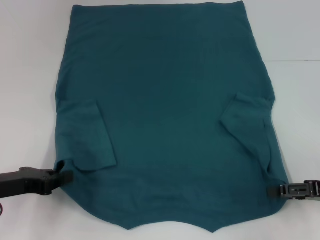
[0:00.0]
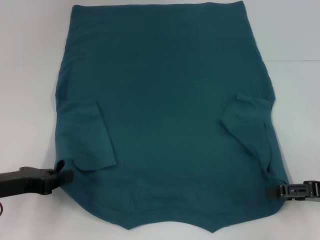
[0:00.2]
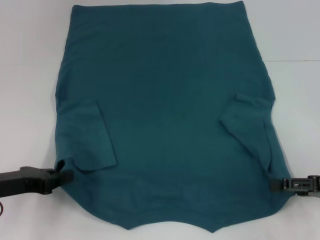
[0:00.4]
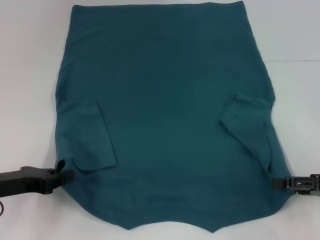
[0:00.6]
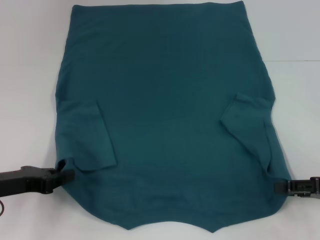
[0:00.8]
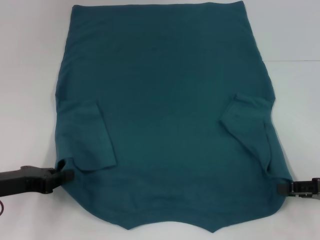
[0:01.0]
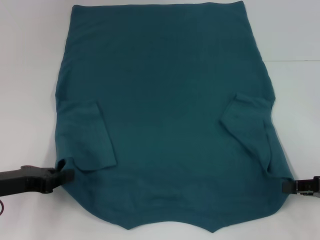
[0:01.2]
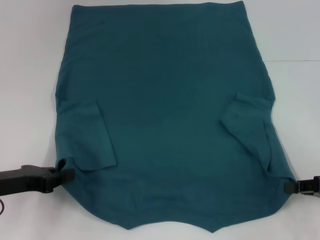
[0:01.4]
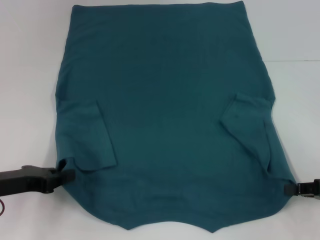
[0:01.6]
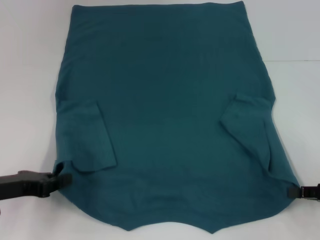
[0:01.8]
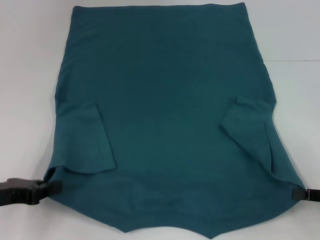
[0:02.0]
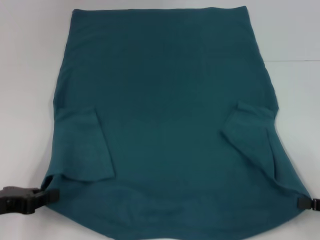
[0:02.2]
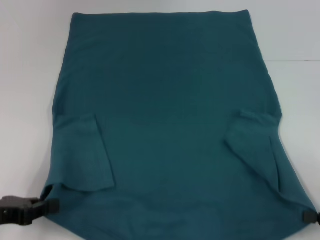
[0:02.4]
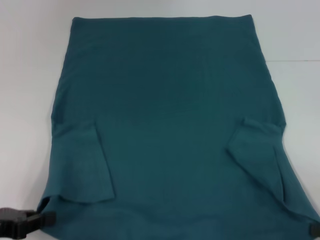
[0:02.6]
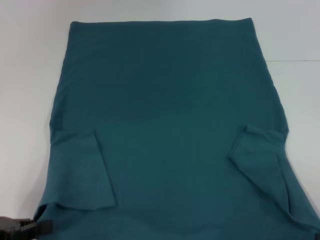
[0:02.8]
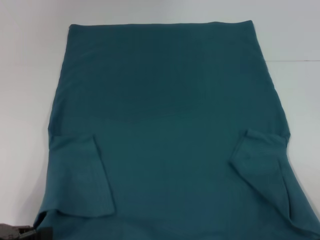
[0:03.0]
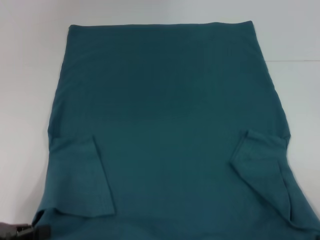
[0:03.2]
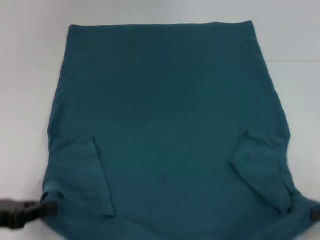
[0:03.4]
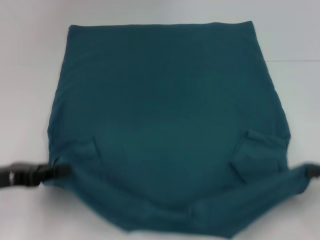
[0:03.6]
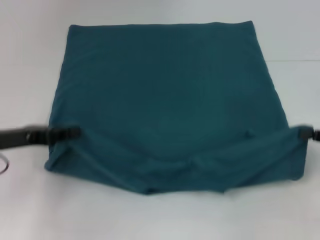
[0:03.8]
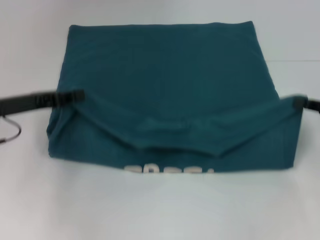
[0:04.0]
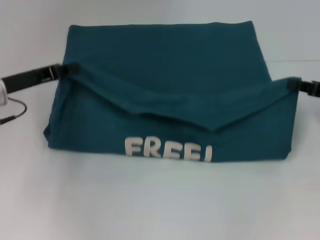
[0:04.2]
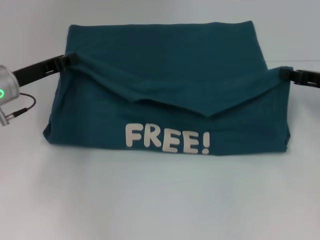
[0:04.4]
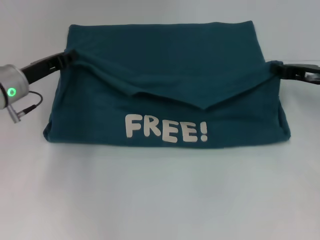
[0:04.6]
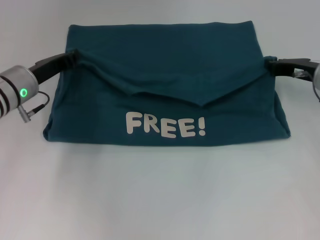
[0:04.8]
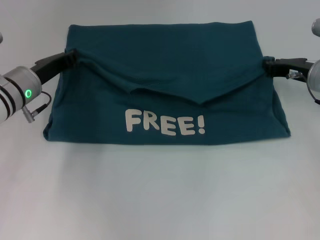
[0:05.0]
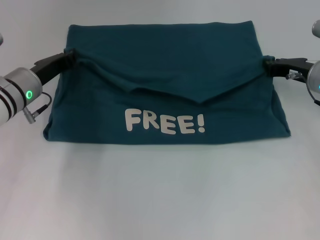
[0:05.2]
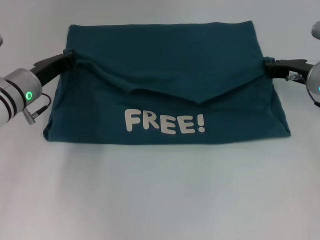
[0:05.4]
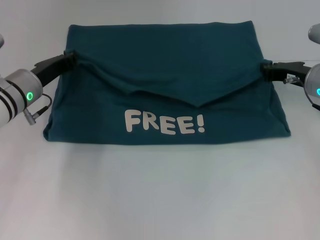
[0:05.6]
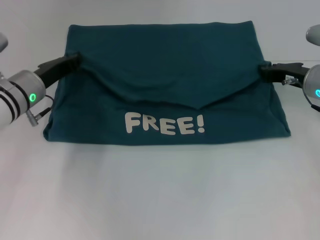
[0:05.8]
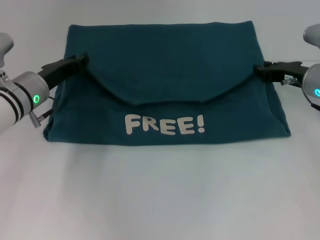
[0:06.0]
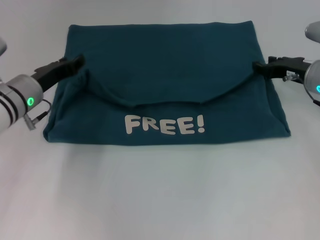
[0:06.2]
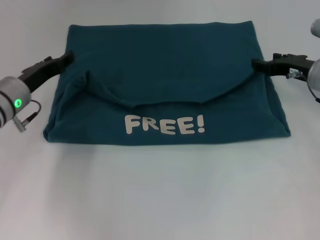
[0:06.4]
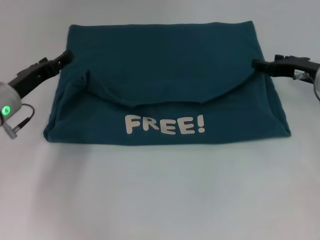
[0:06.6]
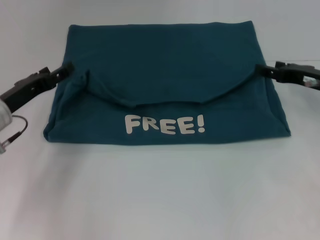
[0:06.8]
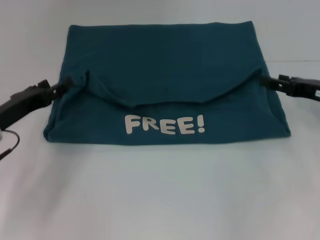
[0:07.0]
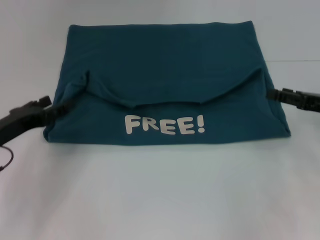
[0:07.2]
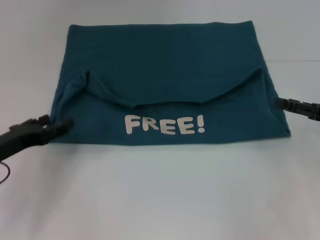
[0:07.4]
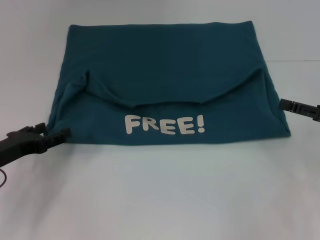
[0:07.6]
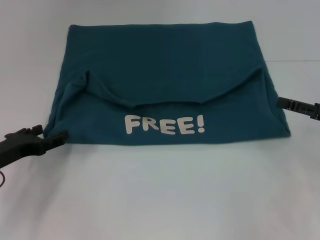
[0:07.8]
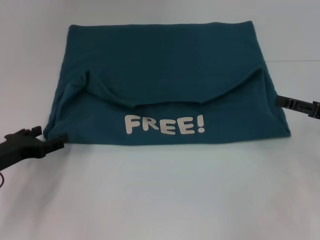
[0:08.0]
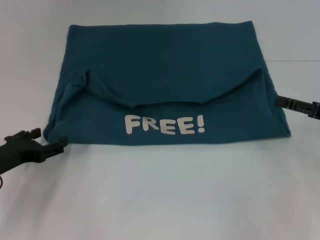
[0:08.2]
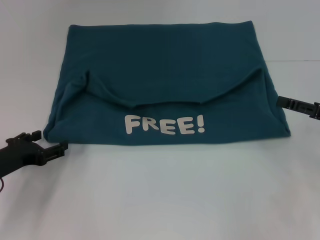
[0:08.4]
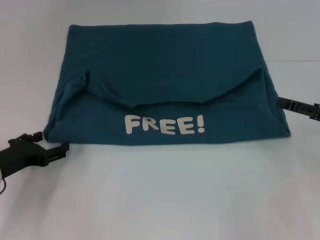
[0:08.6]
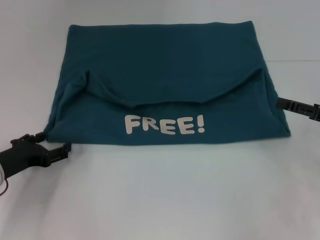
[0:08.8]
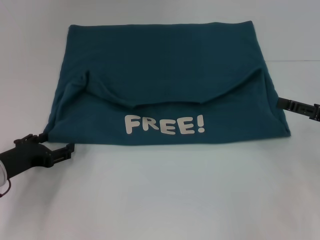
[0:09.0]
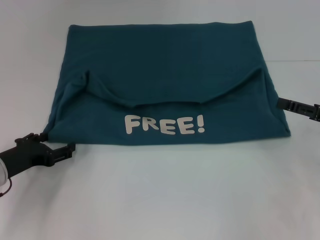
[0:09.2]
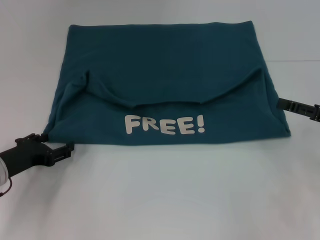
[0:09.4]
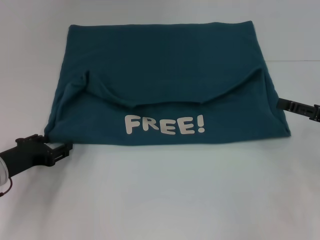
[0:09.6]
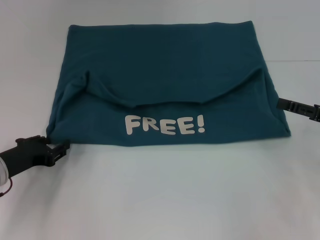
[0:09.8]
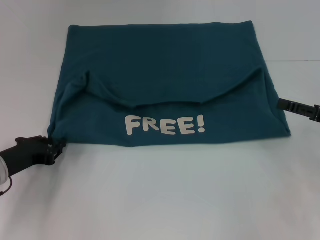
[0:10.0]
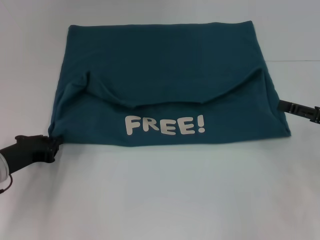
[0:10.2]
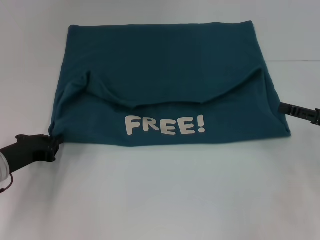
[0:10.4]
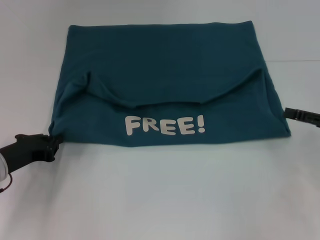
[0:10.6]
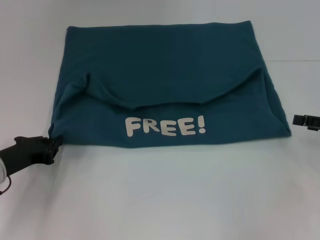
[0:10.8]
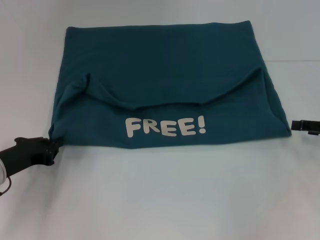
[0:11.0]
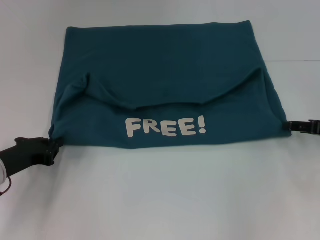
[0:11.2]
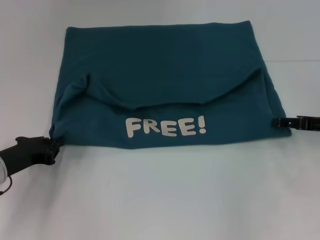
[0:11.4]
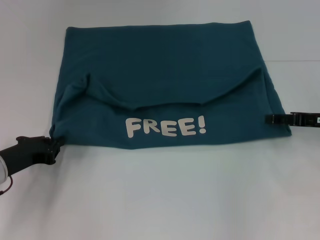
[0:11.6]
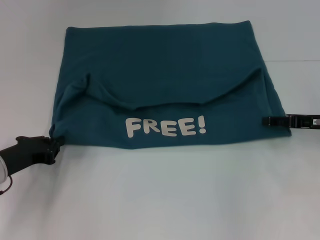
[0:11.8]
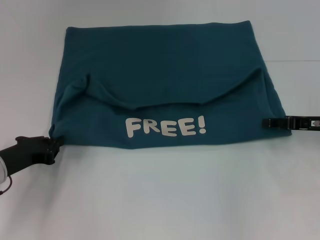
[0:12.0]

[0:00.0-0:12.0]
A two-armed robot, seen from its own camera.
Step, 0:02.0 to 0:06.2: Fold the clothes to the left.
Step, 0:02.0 to 0:06.2: Fold the clothes to the right.
0:00.0 to 0:01.6: The right gripper closes its fingers.
0:01.6 to 0:03.0: The grippers both shift backward by approximately 10 cm.
0:03.0 to 0:04.4: The grippers both shift forward by approximately 20 cm.
0:04.4 to 0:06.0: The left gripper changes place by some 5 cm. The right gripper heads to the left, covering some 5 cm.
0:06.0 to 0:07.6: The left gripper shifts roughly 15 cm backward and to the left, and opens its fingers, while the right gripper is displaced backward and to the right by about 15 cm, and opens up.
0:07.6 to 0:09.0: The grippers move only a little.
0:09.0 to 0:10.4: The left gripper closes.
0:10.4 to 0:12.0: The right gripper moves approximately 5 cm.

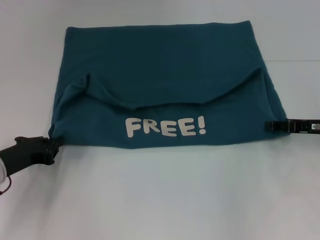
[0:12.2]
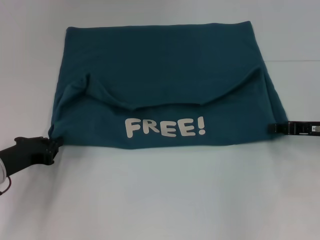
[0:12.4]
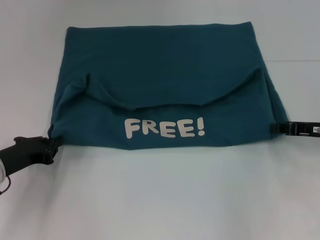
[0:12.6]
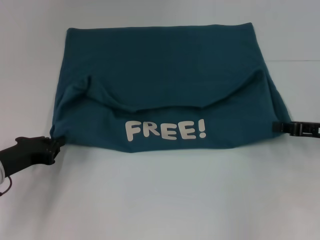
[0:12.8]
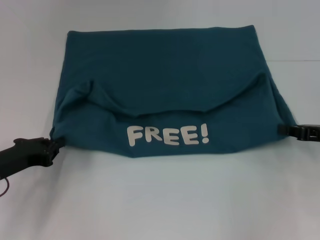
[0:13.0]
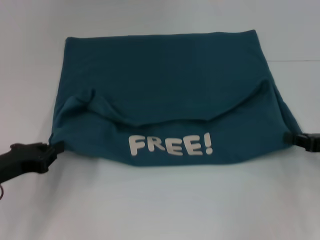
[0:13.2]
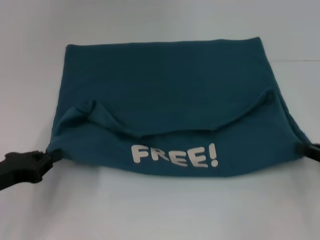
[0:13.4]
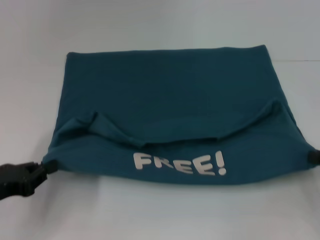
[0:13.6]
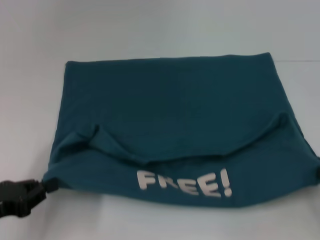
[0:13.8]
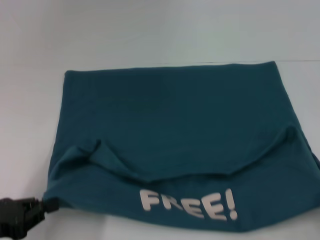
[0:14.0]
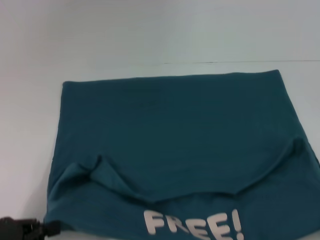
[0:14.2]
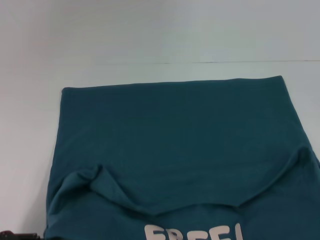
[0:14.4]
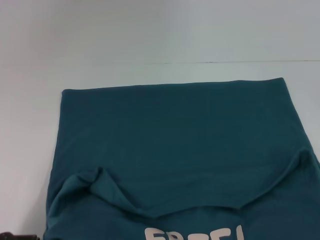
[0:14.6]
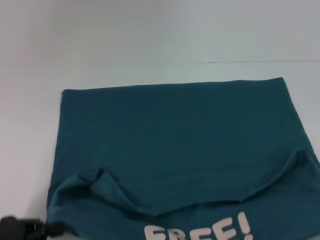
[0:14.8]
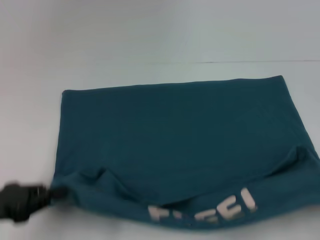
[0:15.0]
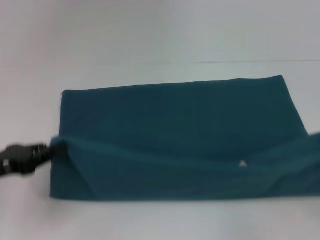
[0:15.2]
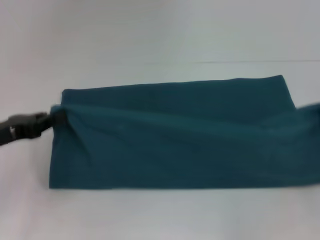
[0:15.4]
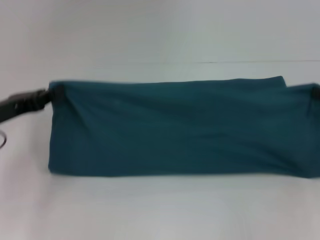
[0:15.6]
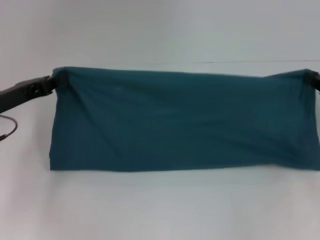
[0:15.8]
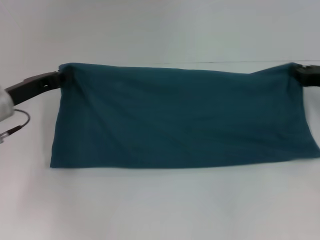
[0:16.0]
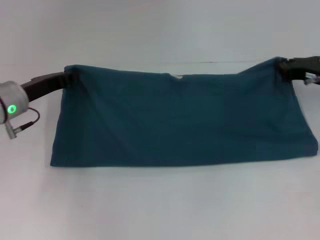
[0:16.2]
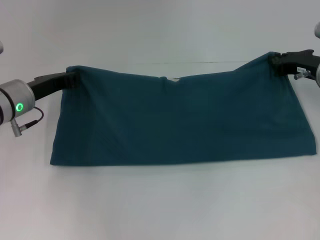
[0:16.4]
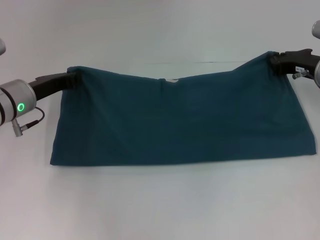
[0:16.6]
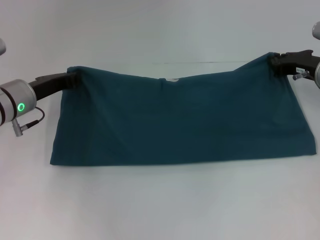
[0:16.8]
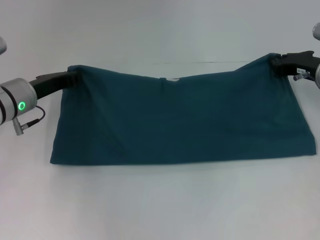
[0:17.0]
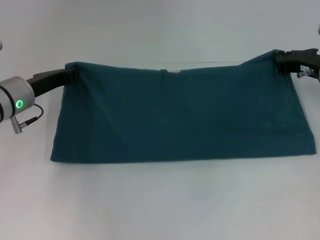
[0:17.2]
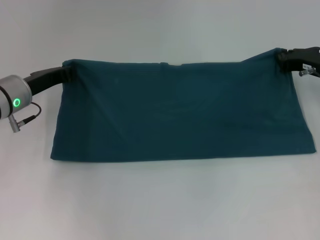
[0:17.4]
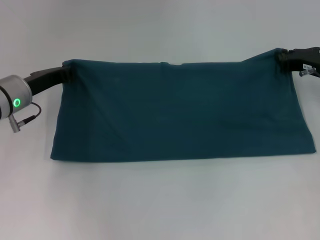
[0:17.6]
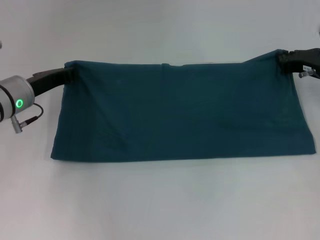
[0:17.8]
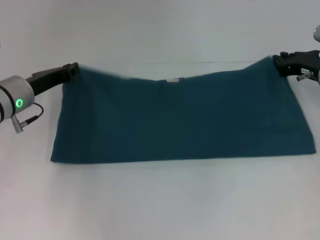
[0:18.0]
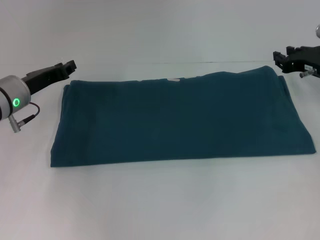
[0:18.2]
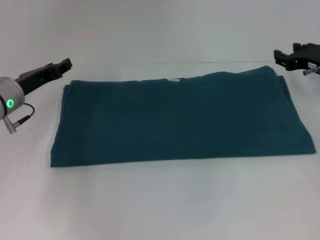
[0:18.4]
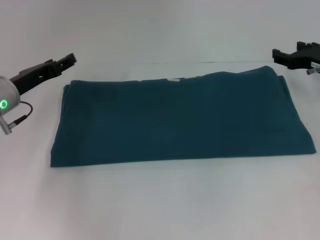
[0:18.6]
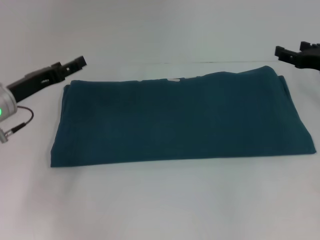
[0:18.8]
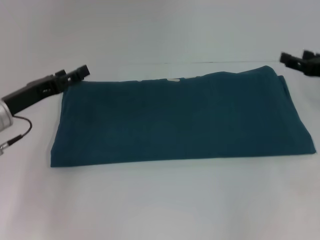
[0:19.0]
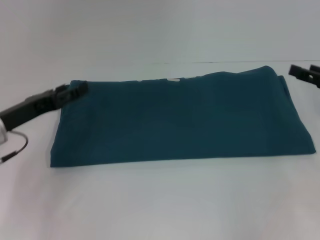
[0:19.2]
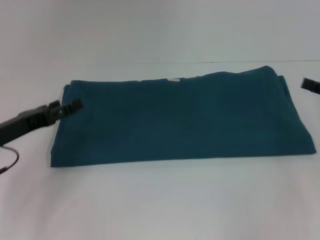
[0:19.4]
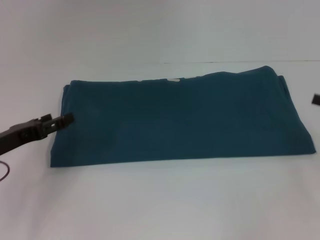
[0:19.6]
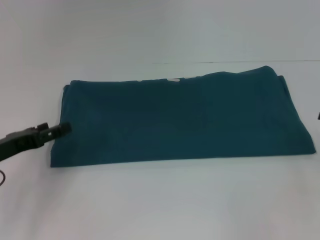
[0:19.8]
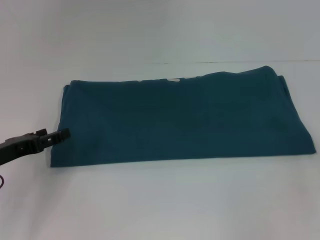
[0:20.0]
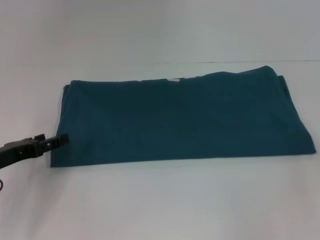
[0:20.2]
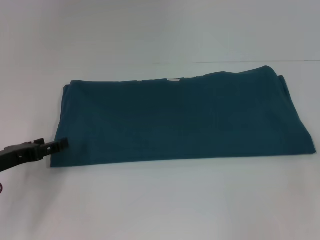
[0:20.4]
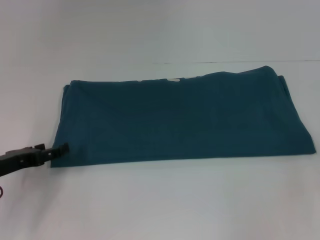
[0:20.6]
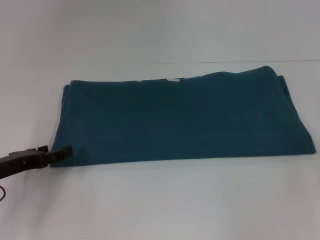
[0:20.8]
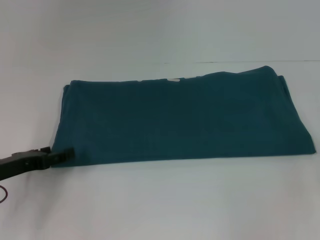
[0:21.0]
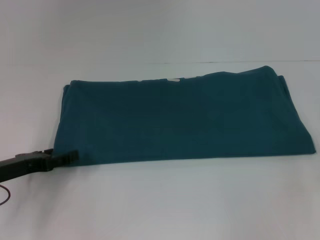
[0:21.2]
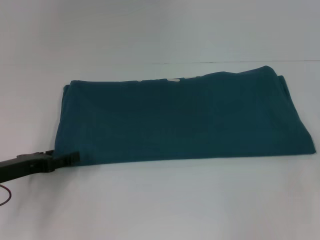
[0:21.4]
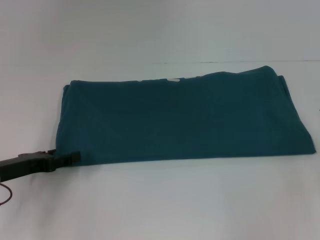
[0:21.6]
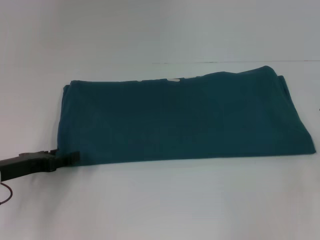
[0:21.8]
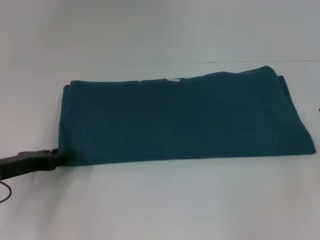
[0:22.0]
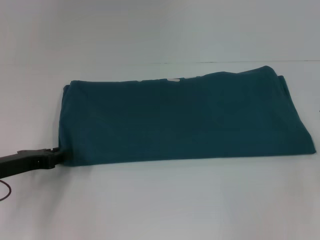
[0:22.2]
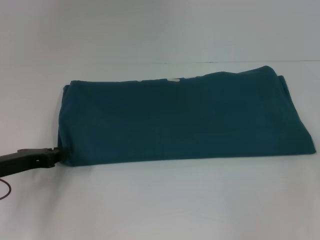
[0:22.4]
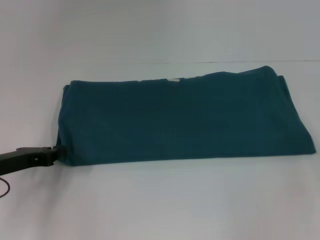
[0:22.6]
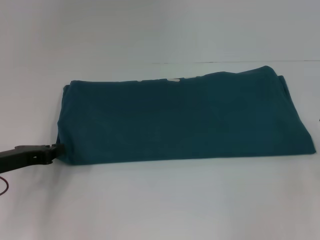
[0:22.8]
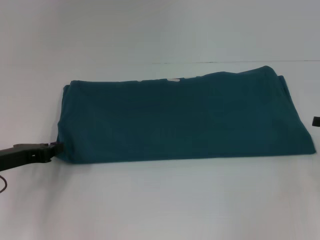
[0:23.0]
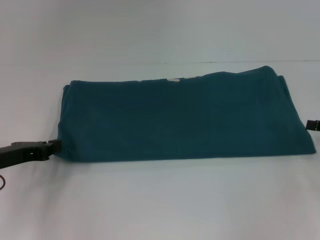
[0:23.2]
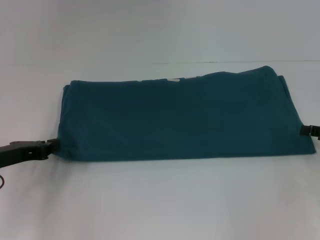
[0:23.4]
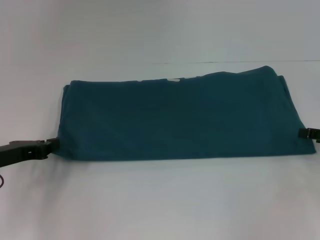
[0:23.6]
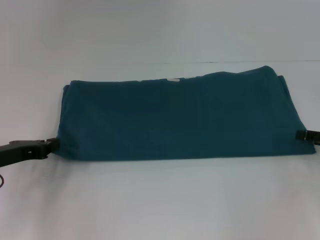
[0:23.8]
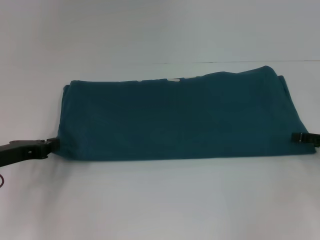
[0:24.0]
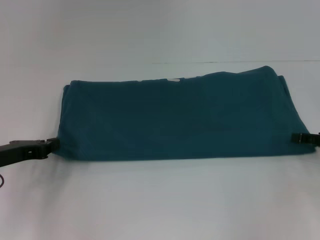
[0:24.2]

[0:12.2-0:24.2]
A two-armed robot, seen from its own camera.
Step, 0:14.2 to 0:18.2: Fold the clothes to the right.
0:12.2 to 0:13.8: The right gripper shifts approximately 15 cm backward and to the right, and closes up. The left gripper moves backward, some 10 cm.
0:13.8 to 0:15.2: The right gripper moves roughly 10 cm backward and comes back. The left gripper shifts by about 5 cm.
0:15.2 to 0:16.6: The right gripper heads forward and to the left, covering about 25 cm; the left gripper moves forward and to the right, roughly 15 cm.
0:16.6 to 0:18.2: The grippers stay close to where they were, moving slightly.
0:18.2 to 0:19.8: The left gripper shifts approximately 10 cm backward and to the left, and opens, while the right gripper is displaced backward and to the right by roughly 15 cm, and opens up.
0:19.8 to 0:21.2: The grippers move only a little.
0:21.2 to 0:22.6: The left gripper closes up.
0:22.6 to 0:24.2: The right gripper ends up about 5 cm from where it was.
